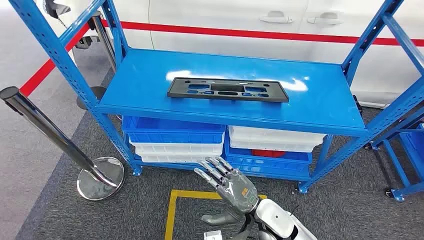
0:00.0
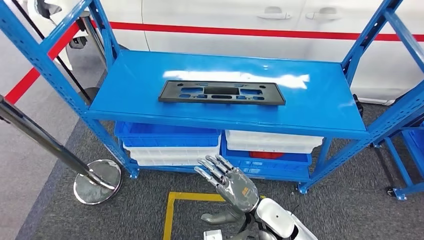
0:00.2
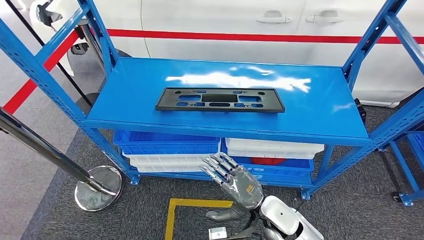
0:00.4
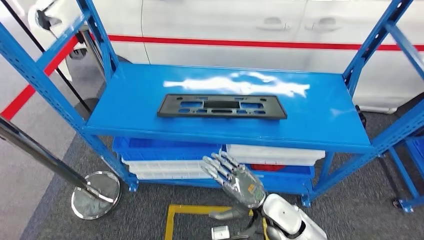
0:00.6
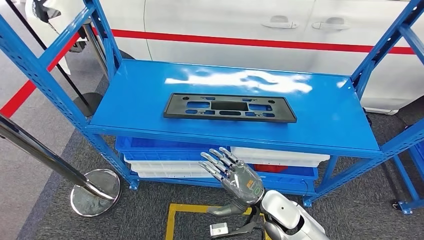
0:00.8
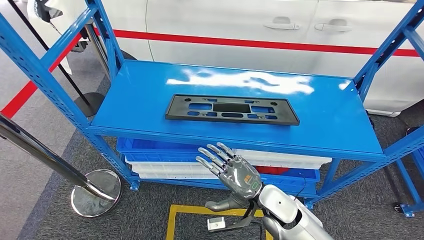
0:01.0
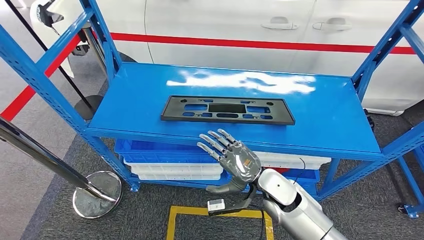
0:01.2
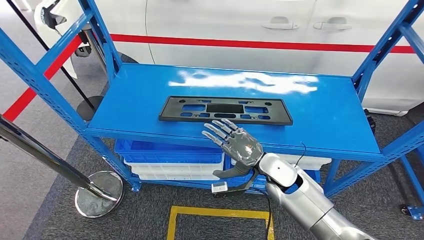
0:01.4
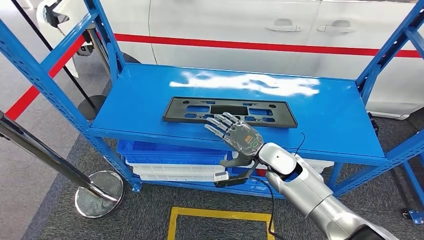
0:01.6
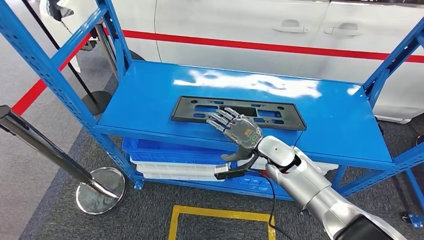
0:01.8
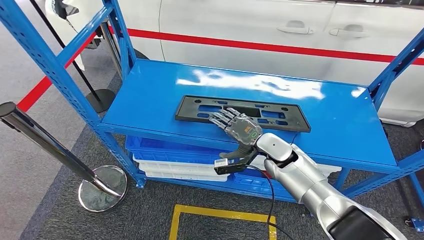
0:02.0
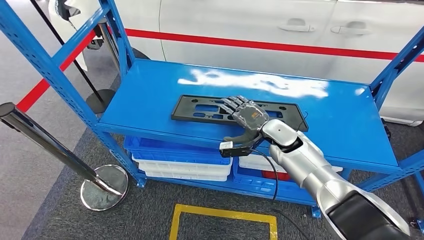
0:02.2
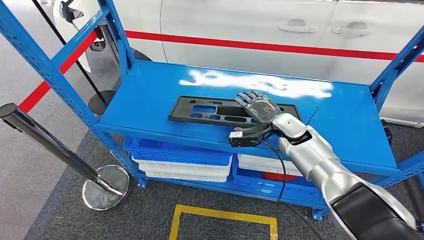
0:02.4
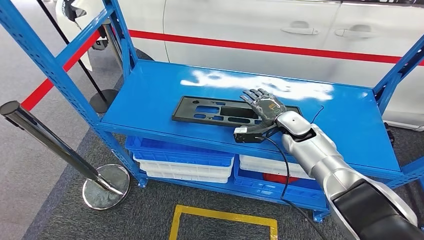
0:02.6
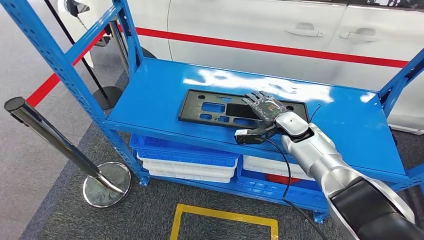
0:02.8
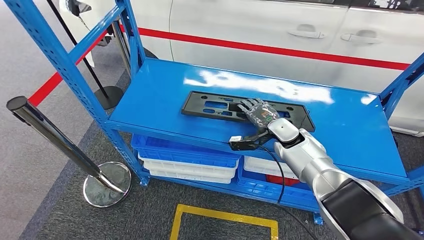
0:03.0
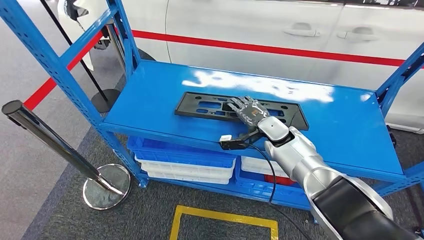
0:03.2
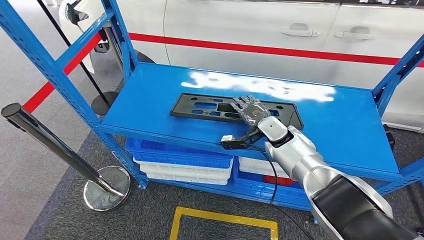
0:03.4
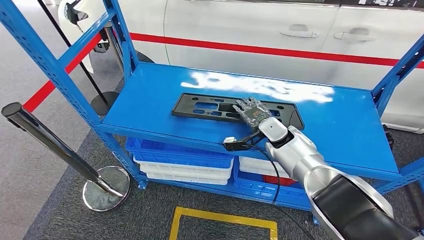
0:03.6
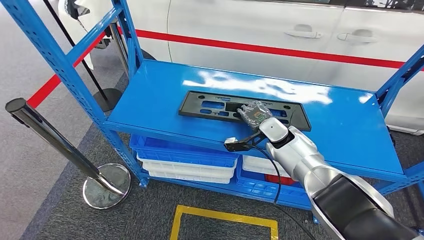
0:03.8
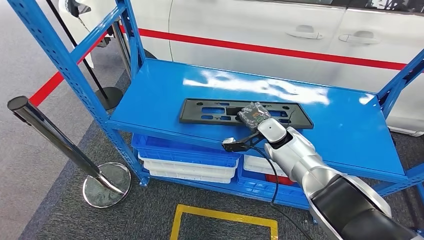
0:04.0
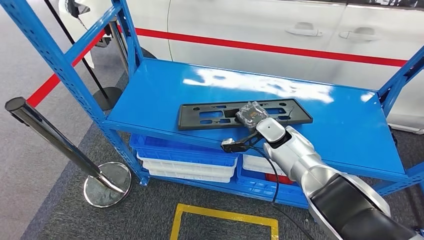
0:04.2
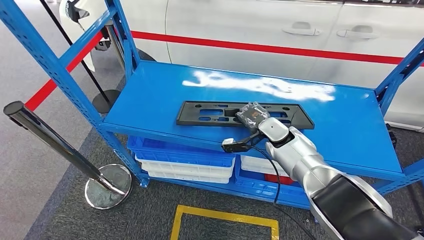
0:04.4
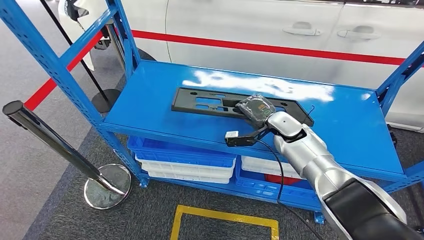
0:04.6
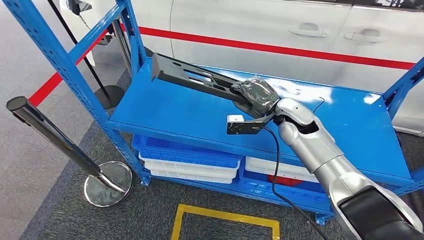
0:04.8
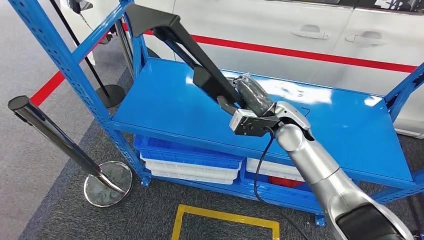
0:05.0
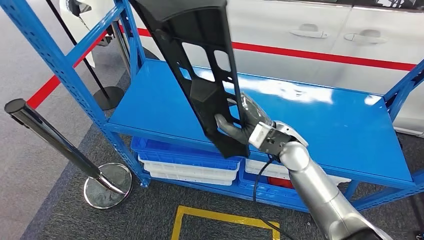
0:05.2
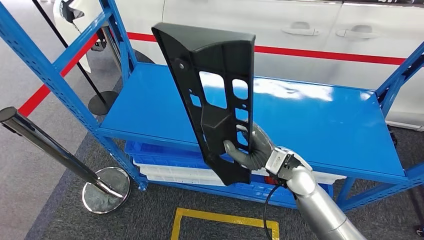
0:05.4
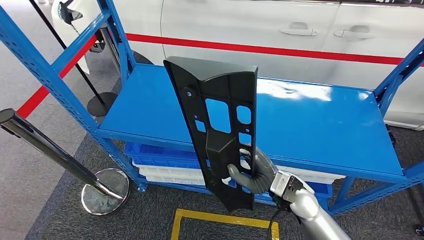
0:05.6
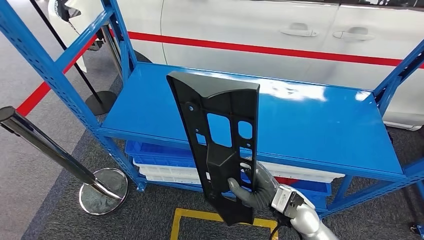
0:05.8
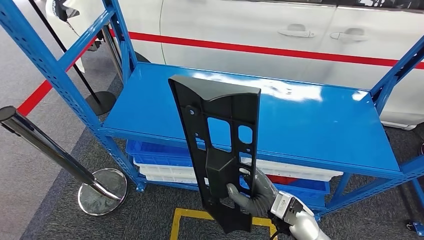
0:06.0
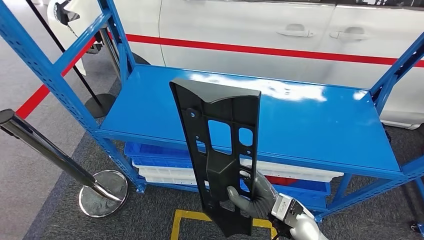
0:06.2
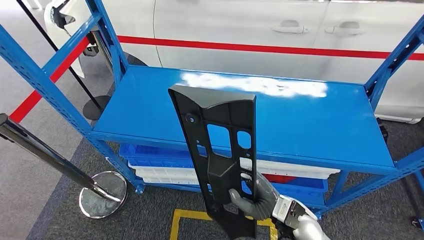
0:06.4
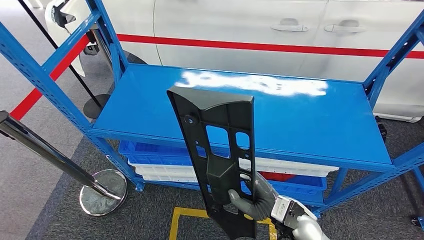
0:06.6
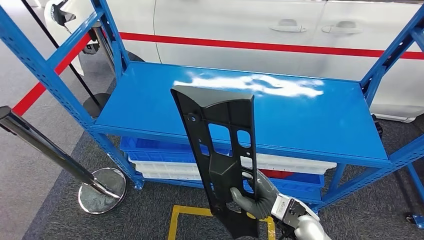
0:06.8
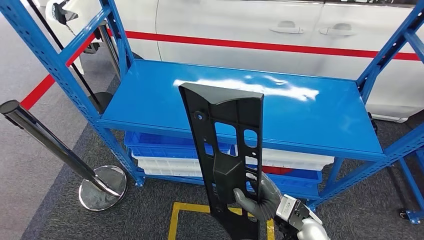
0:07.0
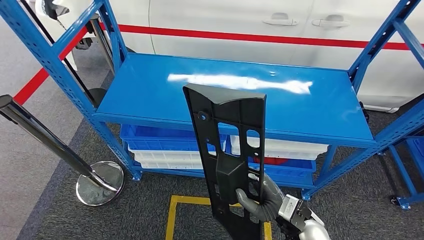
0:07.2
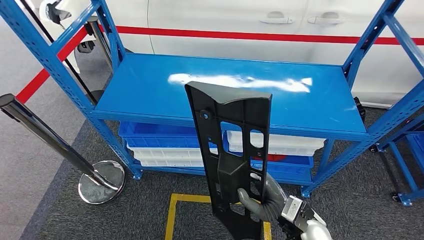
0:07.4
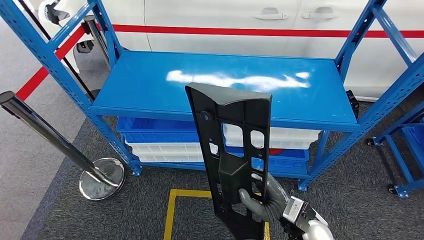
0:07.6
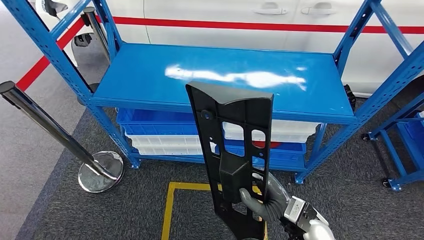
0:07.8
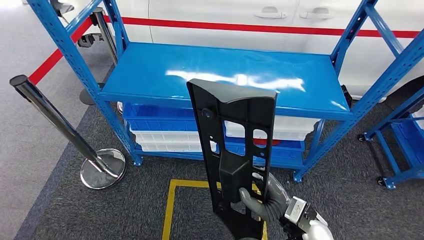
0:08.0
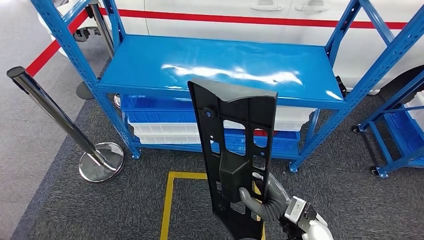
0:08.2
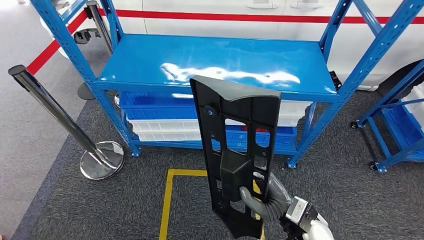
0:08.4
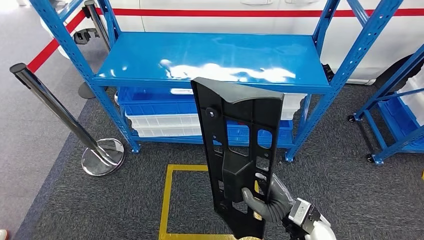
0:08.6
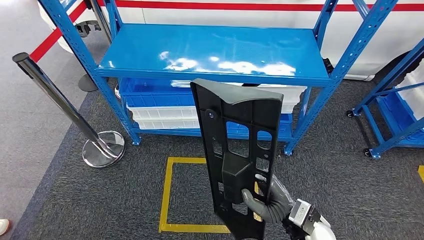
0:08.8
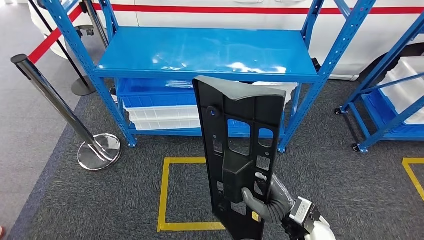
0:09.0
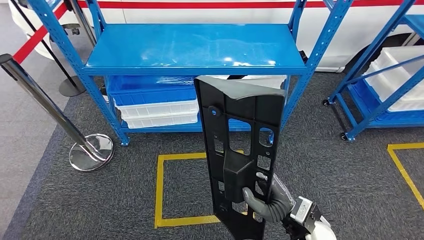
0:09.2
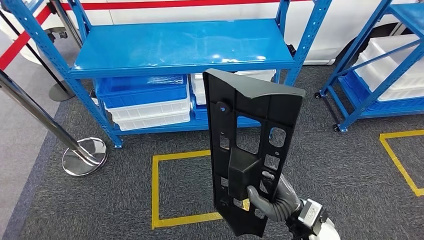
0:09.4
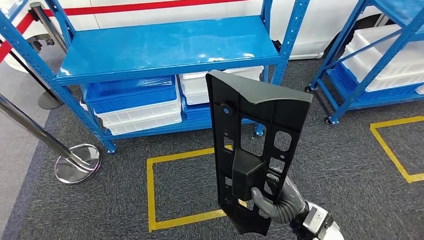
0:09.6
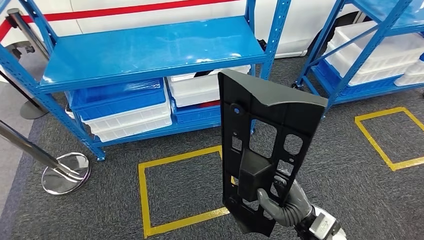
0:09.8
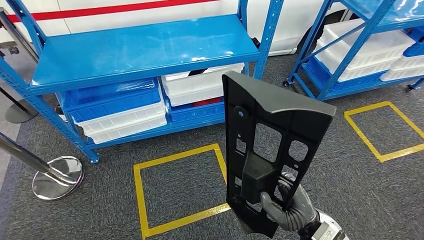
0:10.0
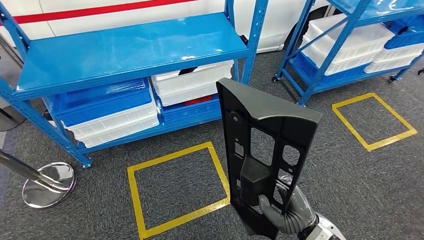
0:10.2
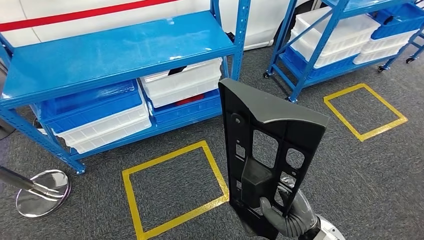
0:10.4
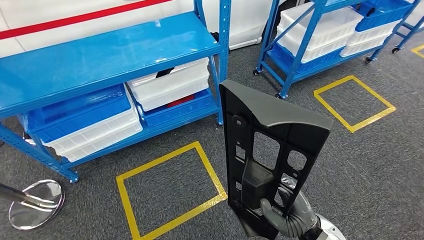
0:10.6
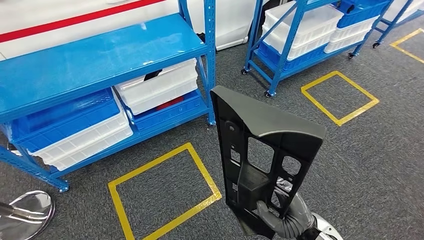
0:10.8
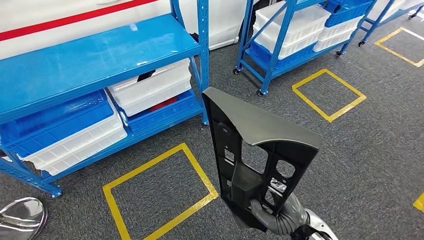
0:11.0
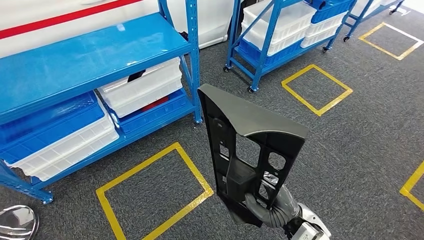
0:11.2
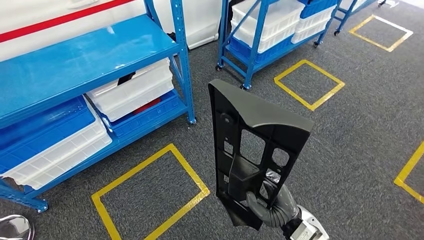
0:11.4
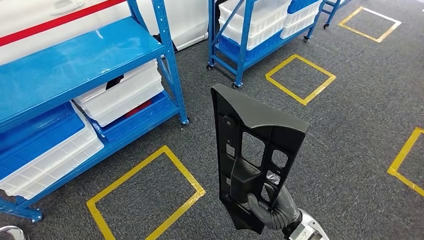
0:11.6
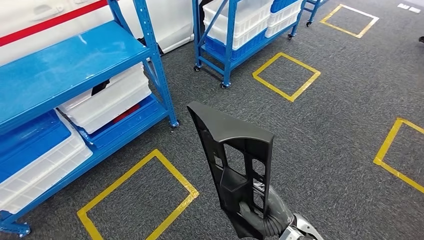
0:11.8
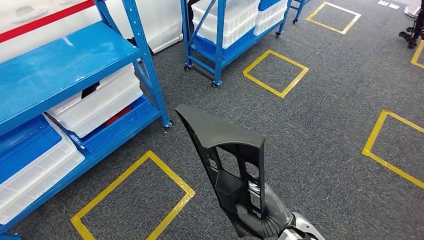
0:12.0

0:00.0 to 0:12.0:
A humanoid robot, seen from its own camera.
Step, 0:00.0 to 0:05.2: Pick up the large material from the shelf.

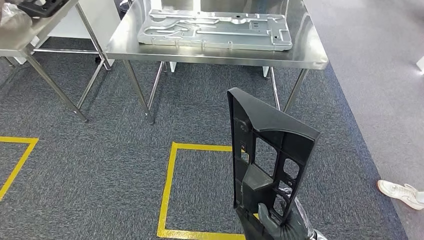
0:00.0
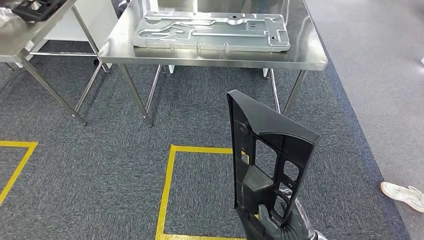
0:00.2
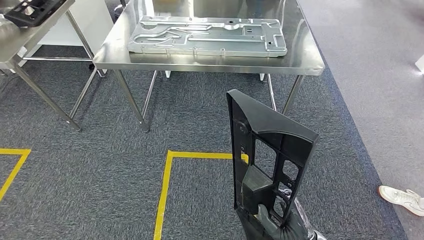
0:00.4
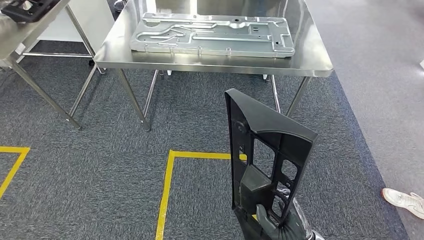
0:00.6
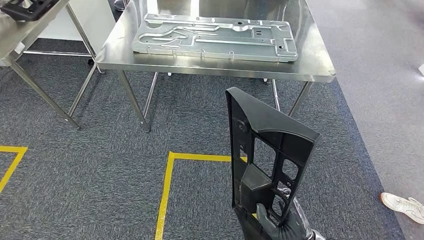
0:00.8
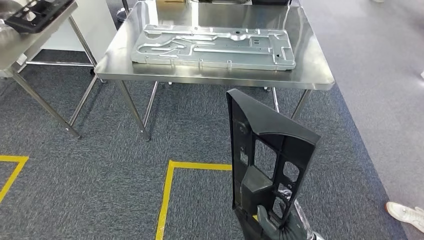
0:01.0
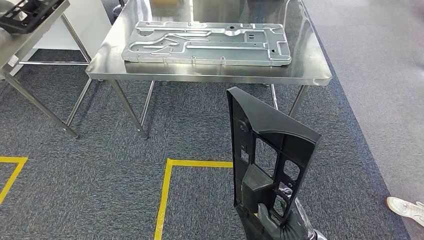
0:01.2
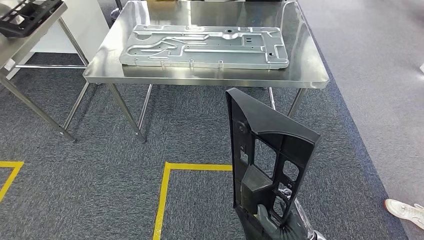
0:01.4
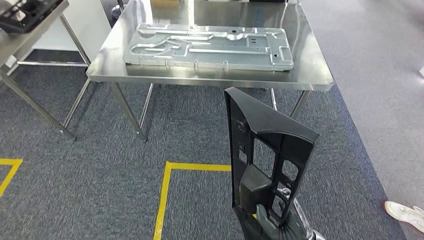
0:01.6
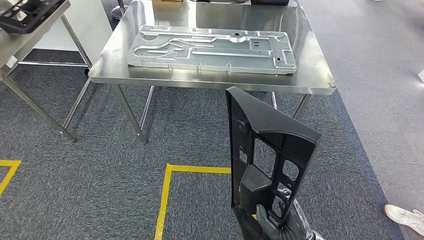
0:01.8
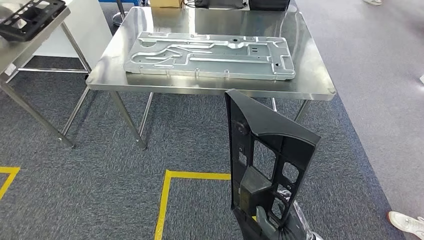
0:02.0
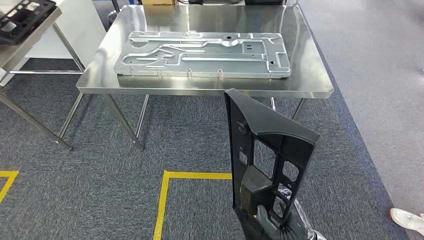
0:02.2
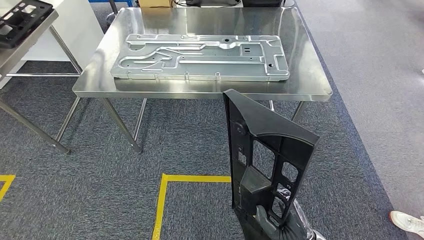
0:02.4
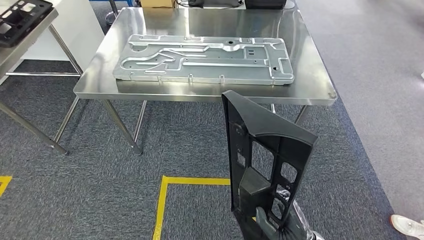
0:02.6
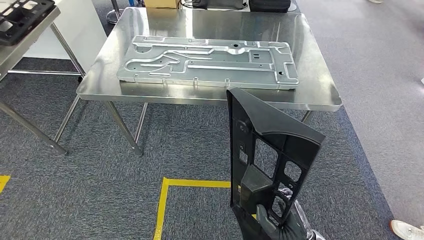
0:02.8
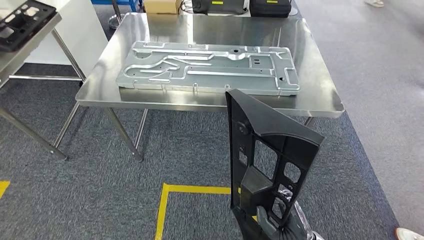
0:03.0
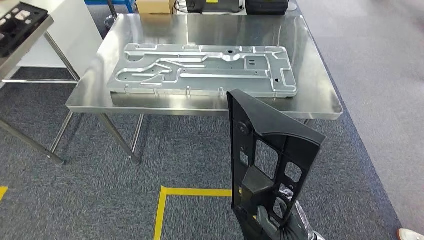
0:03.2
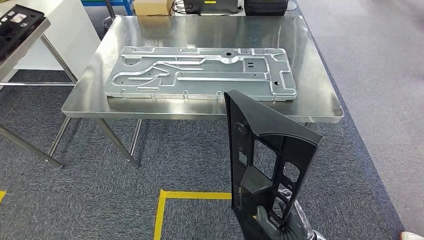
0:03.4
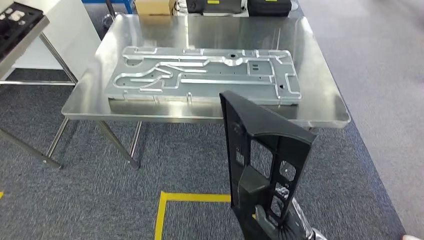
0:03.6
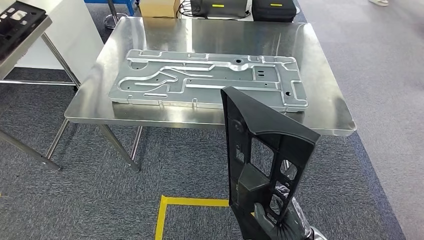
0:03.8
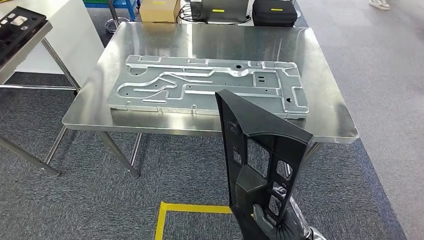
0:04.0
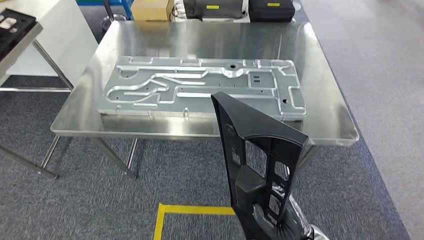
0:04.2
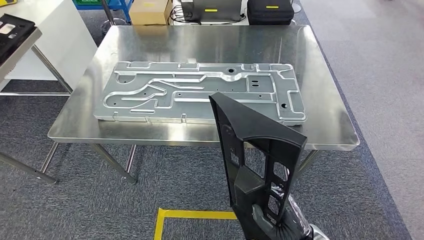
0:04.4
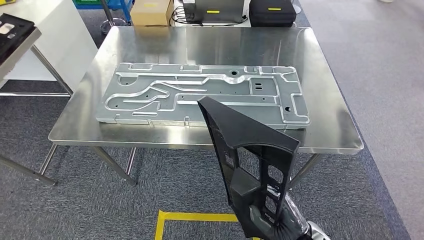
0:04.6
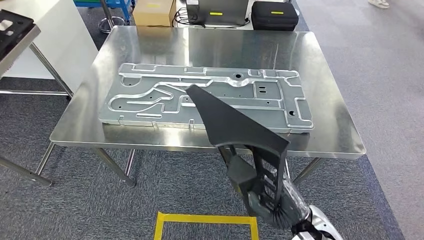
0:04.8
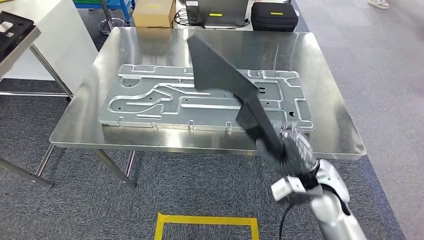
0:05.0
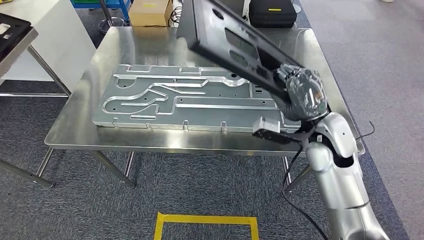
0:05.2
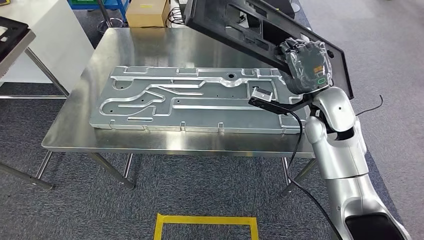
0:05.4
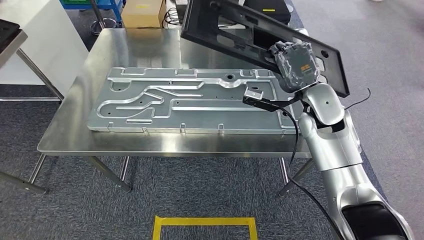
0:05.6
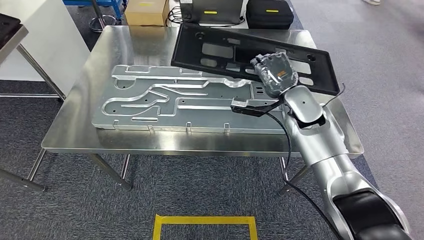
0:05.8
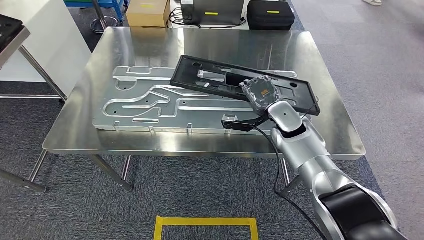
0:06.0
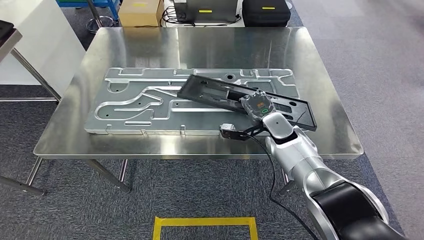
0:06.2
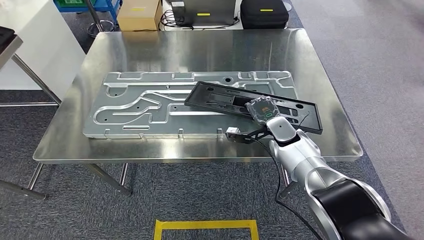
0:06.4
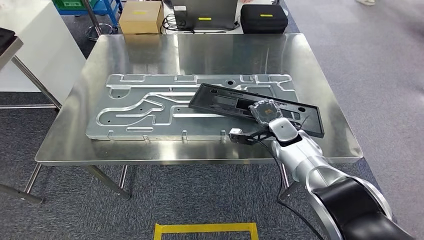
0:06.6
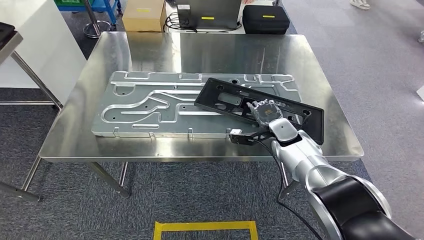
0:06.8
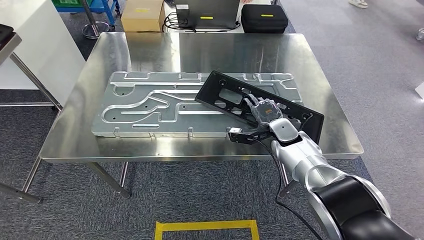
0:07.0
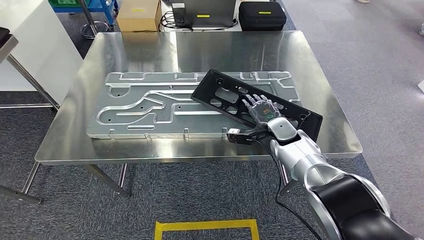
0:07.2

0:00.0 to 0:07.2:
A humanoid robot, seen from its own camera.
Step, 0:00.0 to 0:04.0: Move the large material to the workbench.
